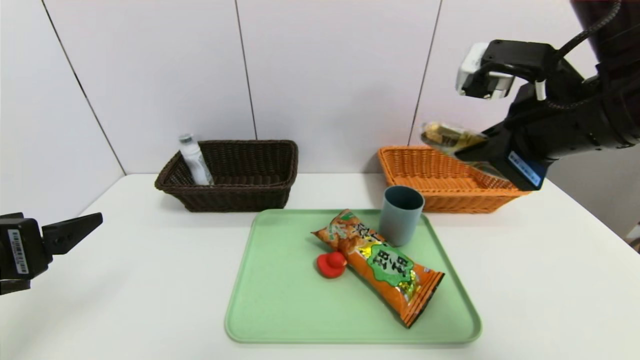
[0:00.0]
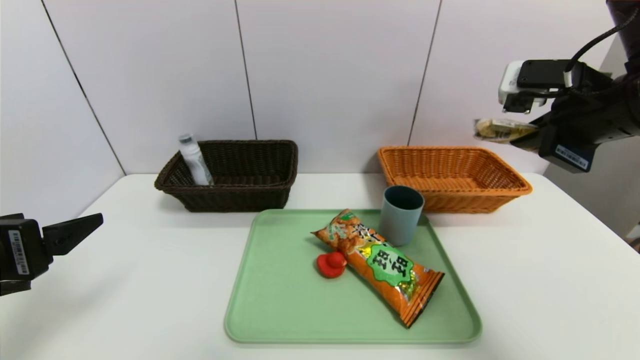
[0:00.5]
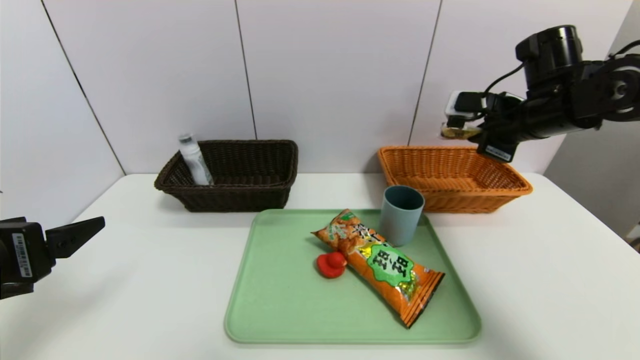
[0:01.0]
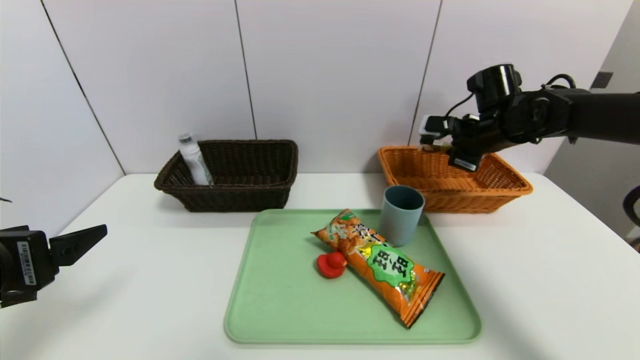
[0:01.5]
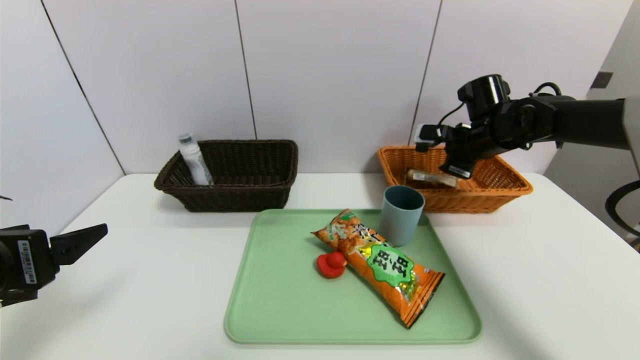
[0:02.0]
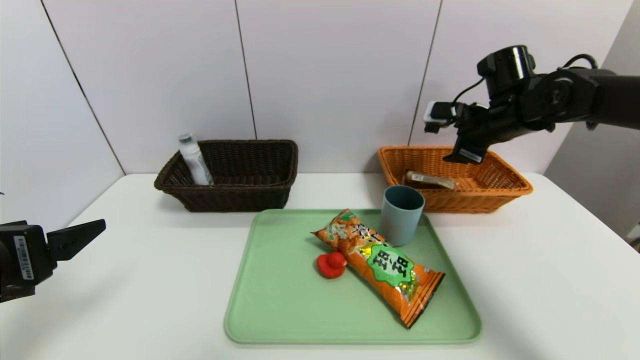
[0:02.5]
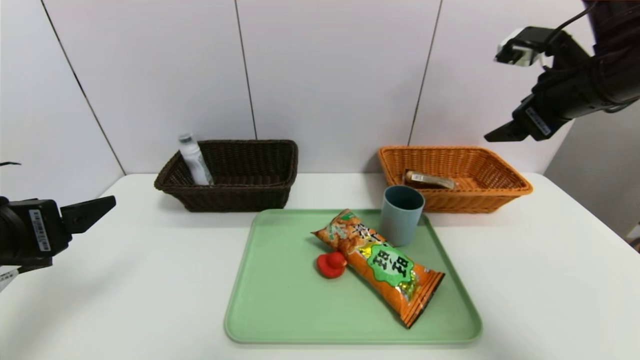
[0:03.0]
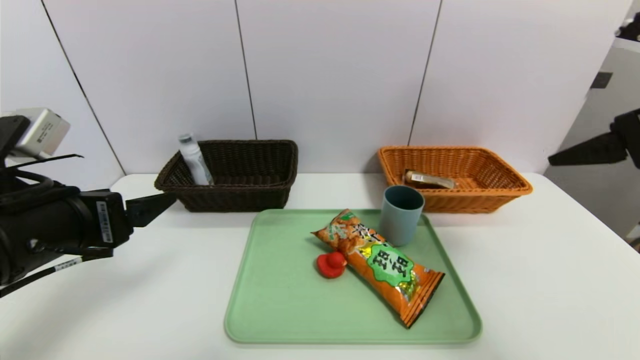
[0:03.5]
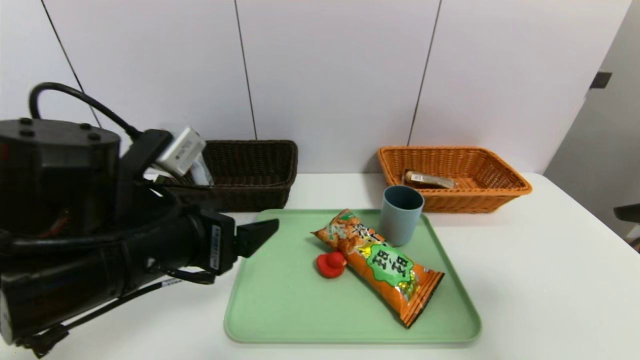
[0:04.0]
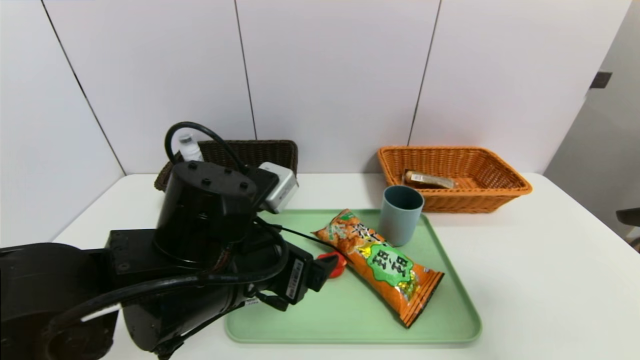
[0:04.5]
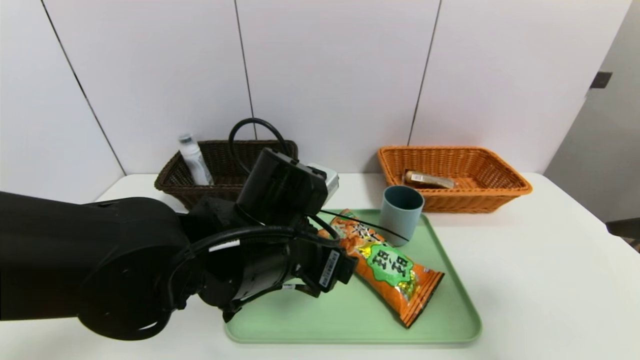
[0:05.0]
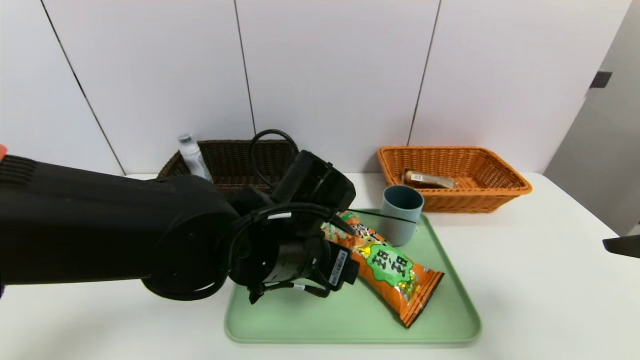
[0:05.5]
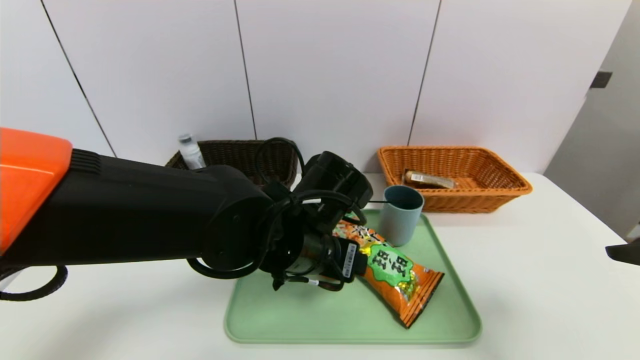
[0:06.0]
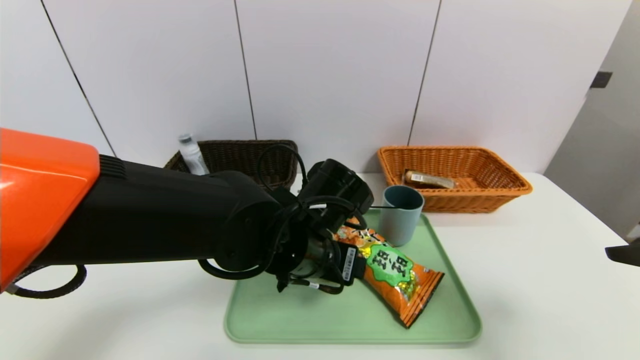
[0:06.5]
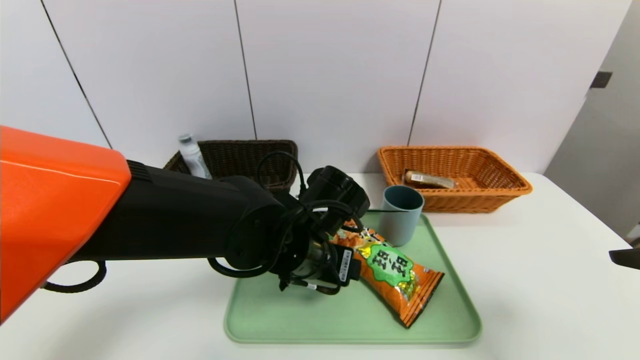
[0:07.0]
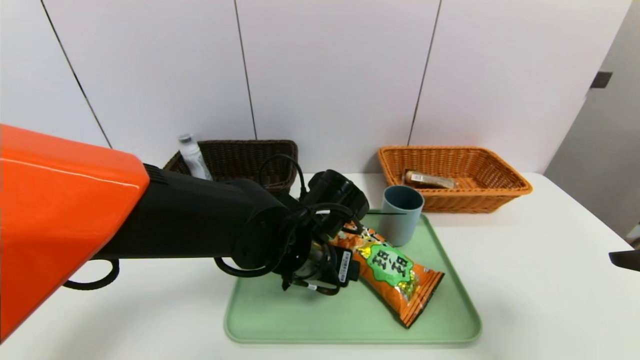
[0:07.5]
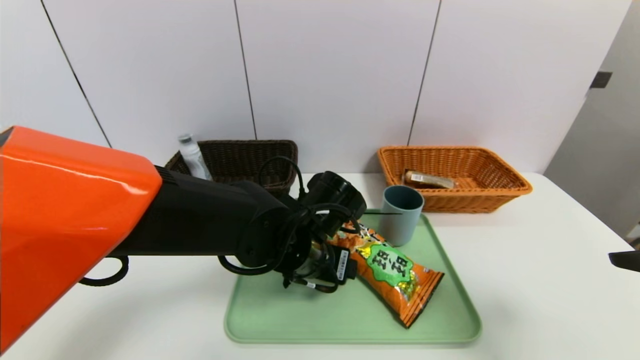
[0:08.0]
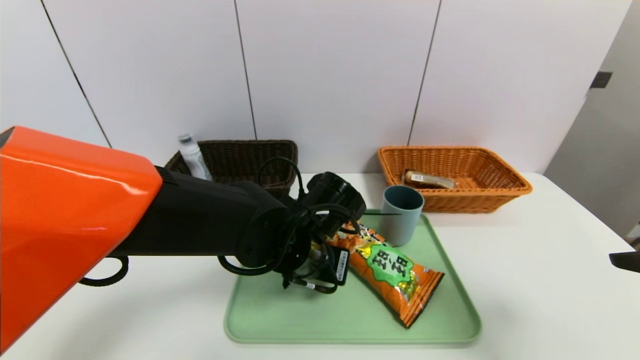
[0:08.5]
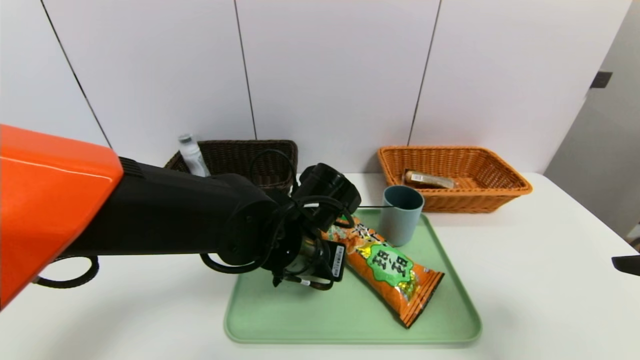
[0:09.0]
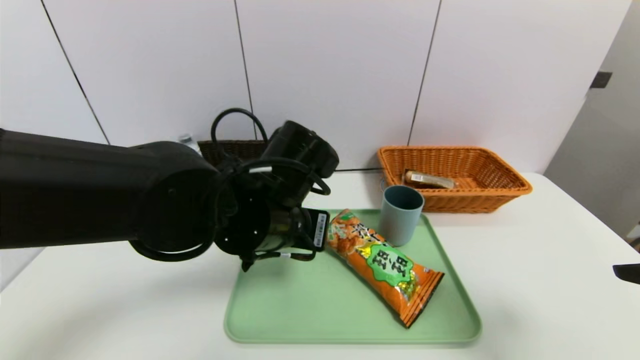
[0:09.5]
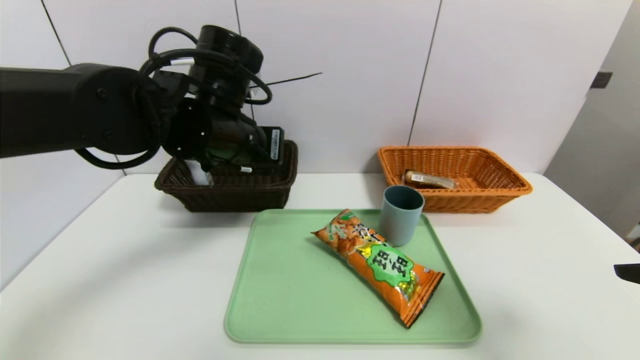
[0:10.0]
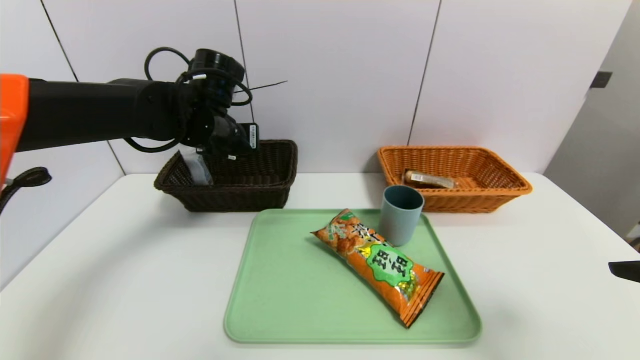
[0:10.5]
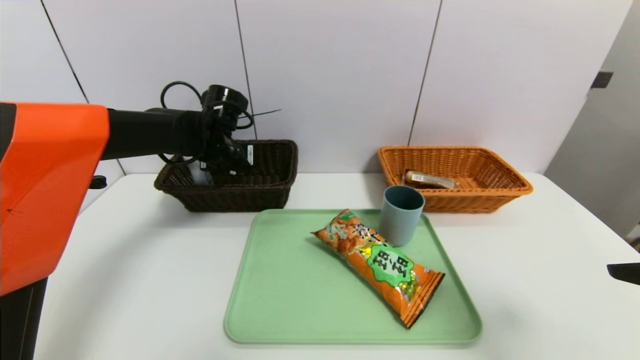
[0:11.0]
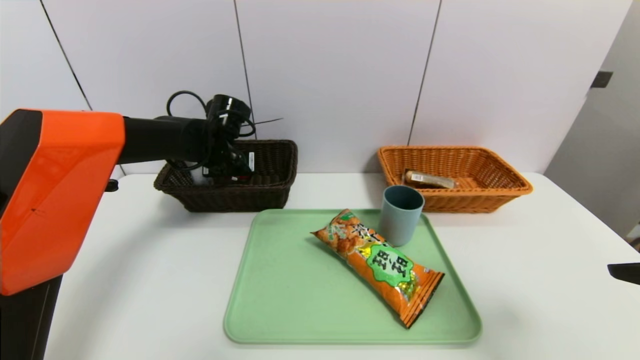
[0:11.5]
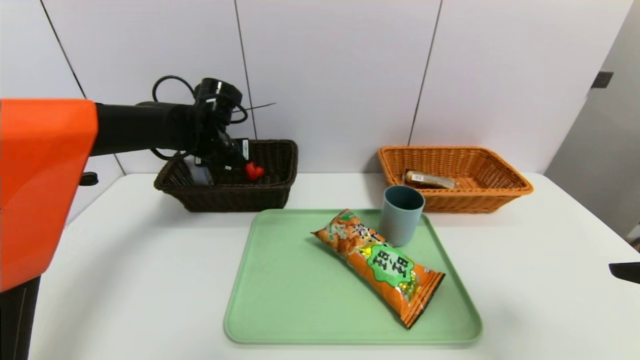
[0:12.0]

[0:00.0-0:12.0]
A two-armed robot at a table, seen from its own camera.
Task of the whole recording: place the food in the right basket with the right gripper, and place the non food items in the left basket with the left gripper.
Step, 0:00.0 to 0:02.0: Grasp the chocolate and put it in the right basket.
Step, 0:02.5 to 0:11.5: Grasp the red duck and put it in the left basket.
0:00.0 to 0:02.0: The right gripper moves forward and downward, about 25 cm, and opens up.
0:02.0 to 0:04.0: The left gripper goes about 15 cm to the right. Meanwhile the right gripper goes roughly 35 cm backward, and opens.
0:04.0 to 0:06.0: The left gripper moves to the right and forward, approximately 15 cm.
0:06.0 to 0:08.0: The grippers stay close to where they were, moving slightly.
0:08.0 to 0:10.0: The left gripper is displaced upward and to the left by some 15 cm, and closes its fingers.
0:10.0 to 0:12.0: The left gripper heads forward, downward and to the left, covering approximately 15 cm, and opens up.

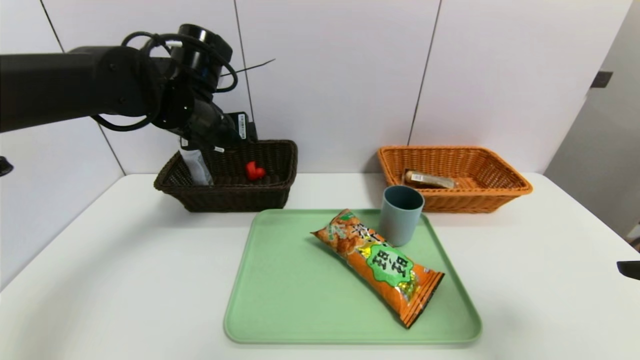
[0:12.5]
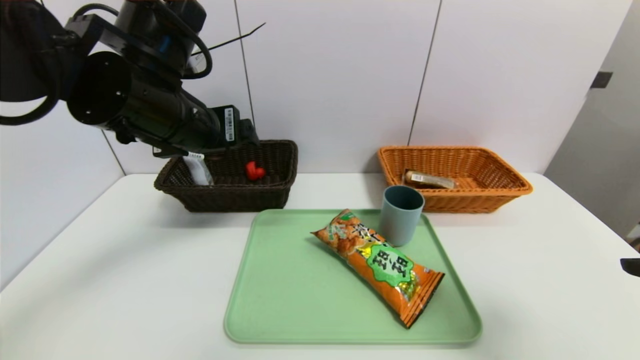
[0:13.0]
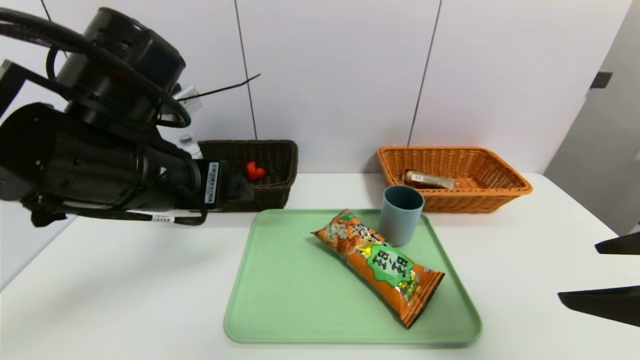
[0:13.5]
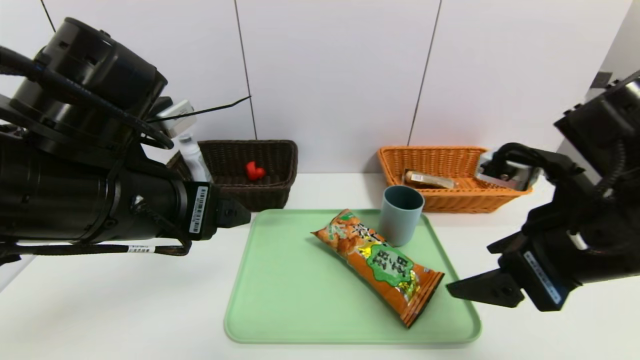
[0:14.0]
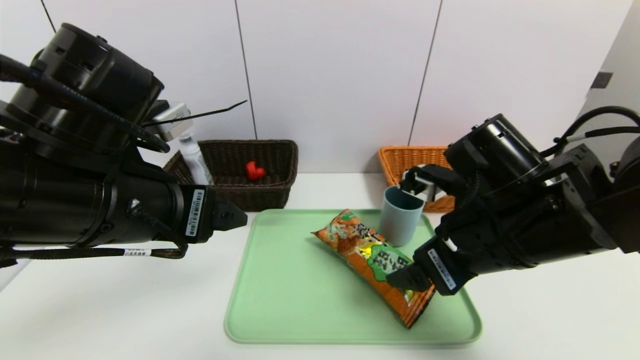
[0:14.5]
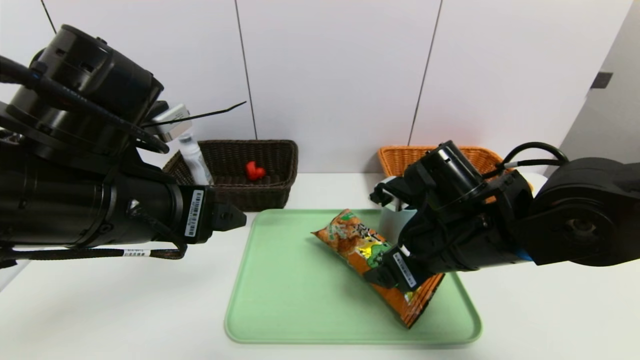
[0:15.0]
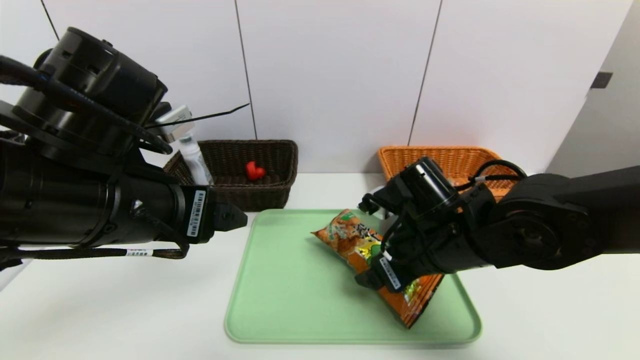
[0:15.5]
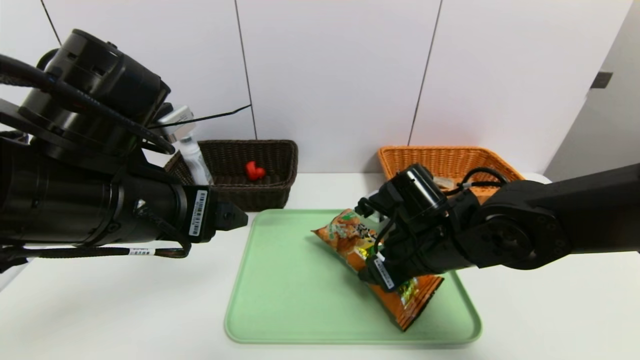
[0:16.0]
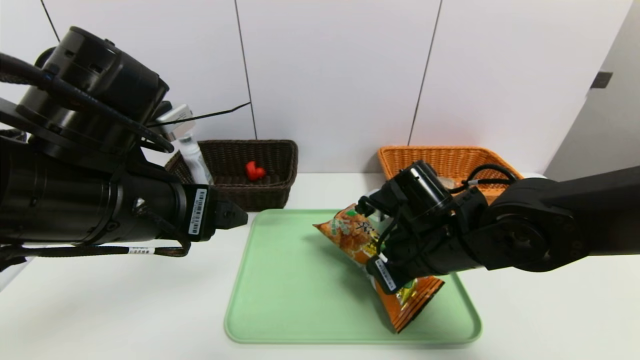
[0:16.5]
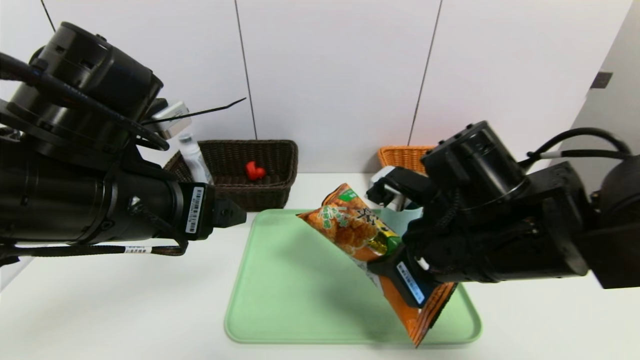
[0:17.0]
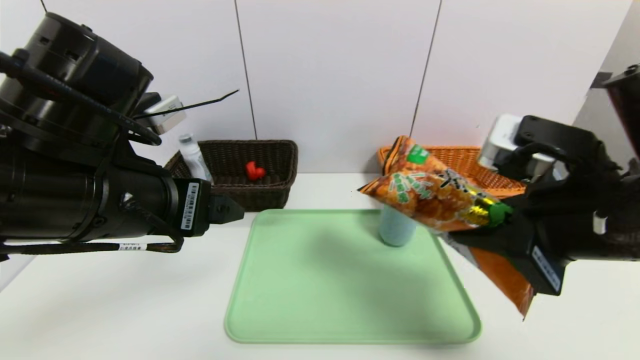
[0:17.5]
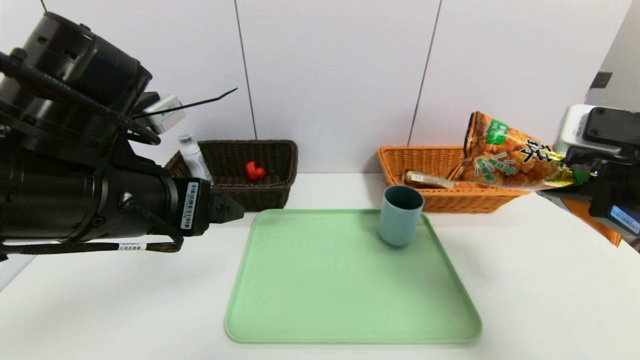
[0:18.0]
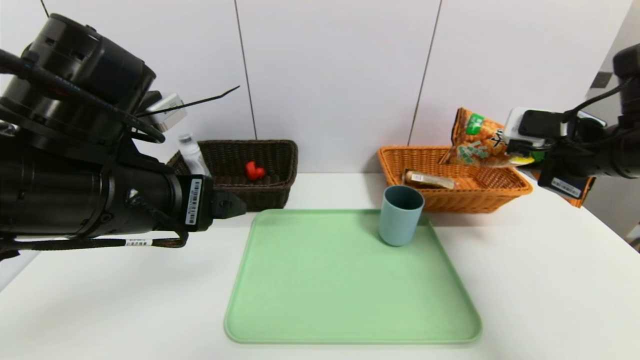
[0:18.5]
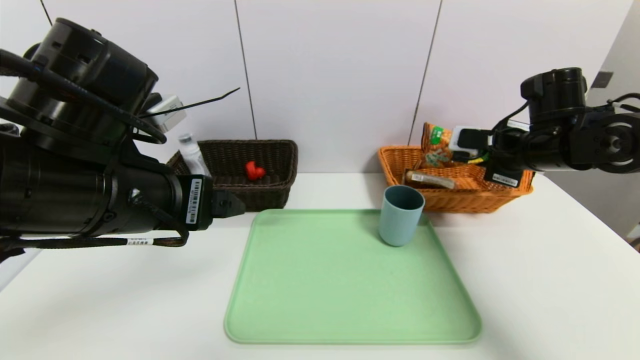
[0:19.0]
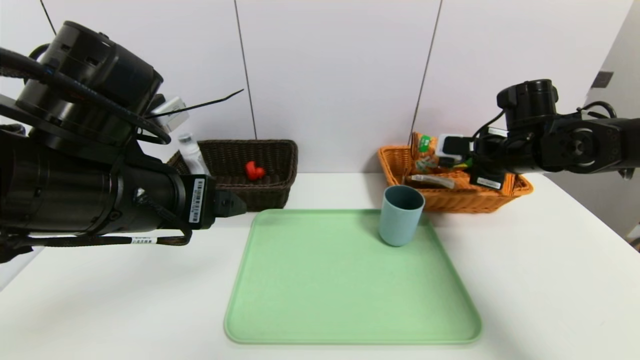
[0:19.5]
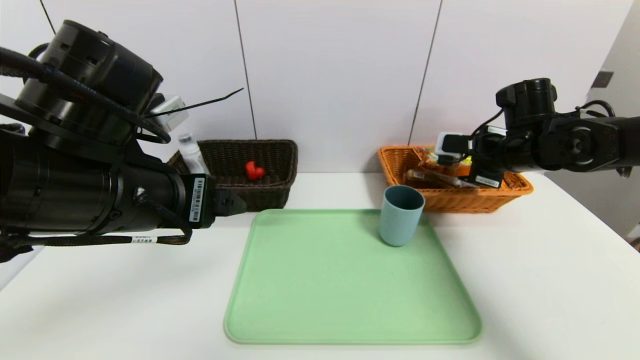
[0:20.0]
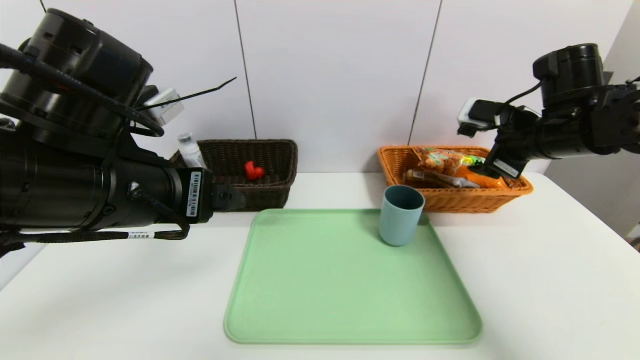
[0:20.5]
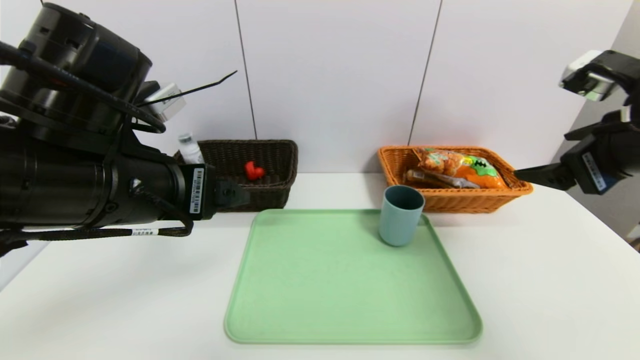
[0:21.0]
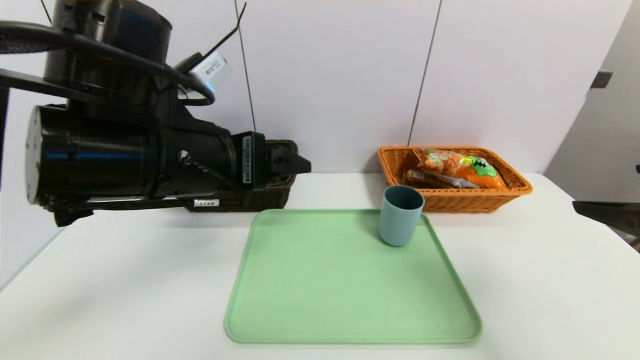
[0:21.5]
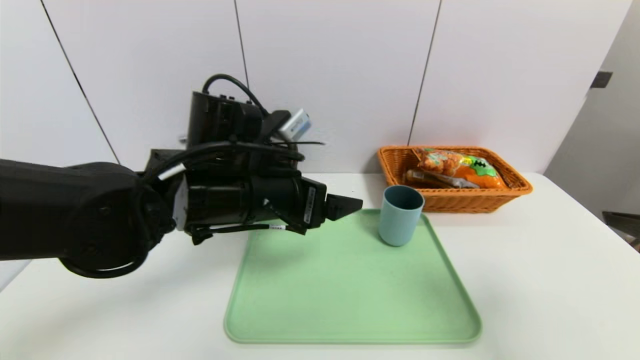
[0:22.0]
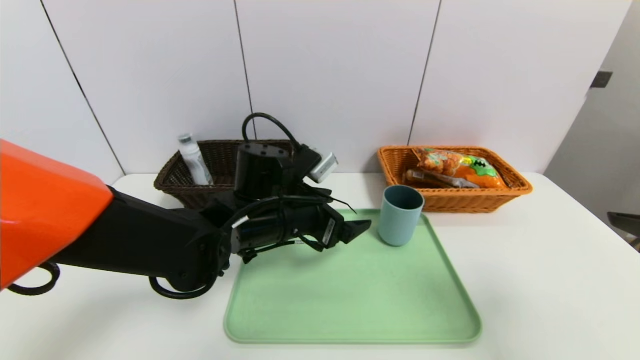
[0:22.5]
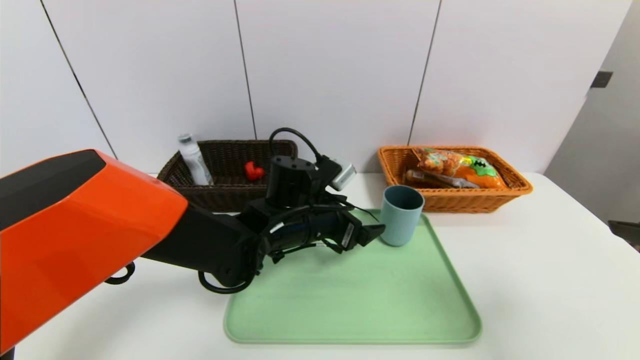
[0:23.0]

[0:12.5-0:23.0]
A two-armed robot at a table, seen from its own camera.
Task of the whole recording: place the food in the right basket with the right gripper, and place the non food items in the left basket with the left gripper.
Step, 0:12.5 to 0:20.5: Grasp the cookie and put it in the right basket.
0:12.5 to 0:14.5: The left gripper shifts roughly 15 cm backward; the right gripper is displaced to the left, forward and downward by approximately 20 cm.
0:14.5 to 0:16.5: The right gripper goes approximately 5 cm downward, and closes.
0:16.5 to 0:19.0: The right gripper is displaced to the right, forward and upward by approximately 20 cm.
0:19.0 to 0:21.0: The right gripper shifts approximately 15 cm backward and upward, and opens up.
0:21.0 to 0:23.0: The right gripper goes roughly 10 cm backward. The left gripper goes some 25 cm downward, to the right and forward.
